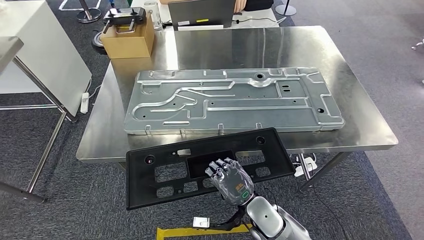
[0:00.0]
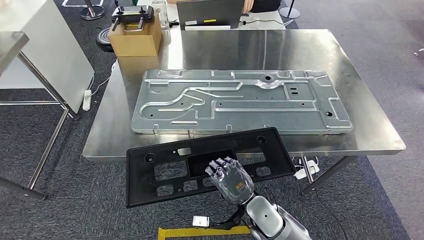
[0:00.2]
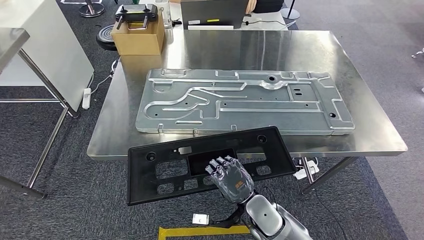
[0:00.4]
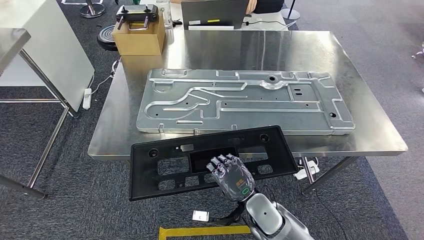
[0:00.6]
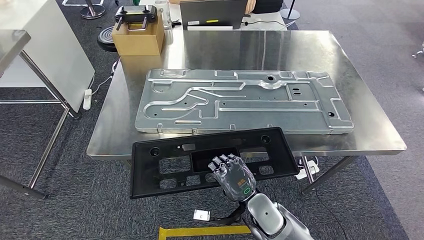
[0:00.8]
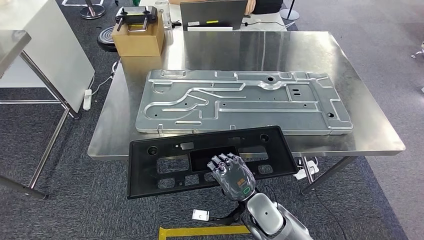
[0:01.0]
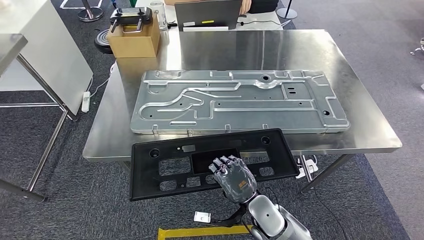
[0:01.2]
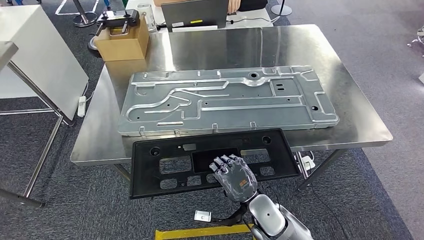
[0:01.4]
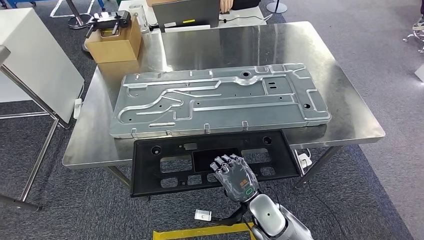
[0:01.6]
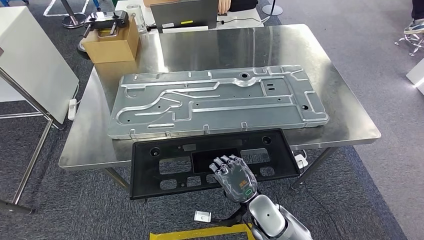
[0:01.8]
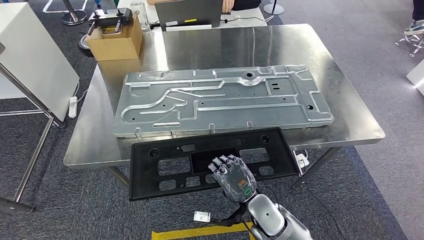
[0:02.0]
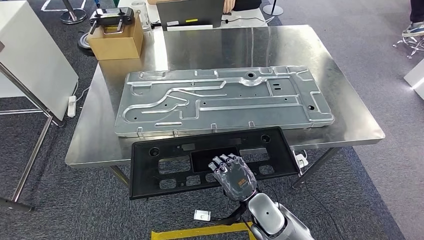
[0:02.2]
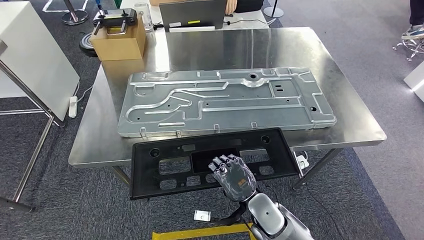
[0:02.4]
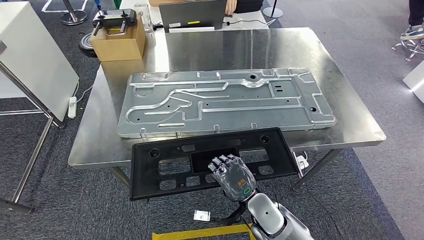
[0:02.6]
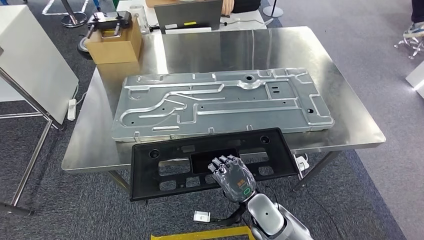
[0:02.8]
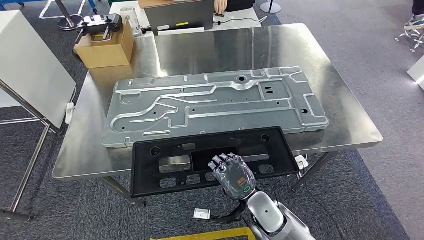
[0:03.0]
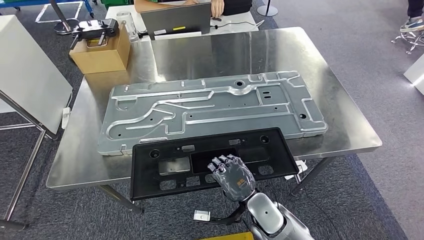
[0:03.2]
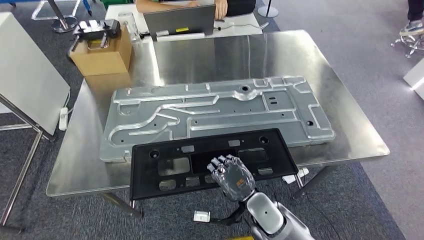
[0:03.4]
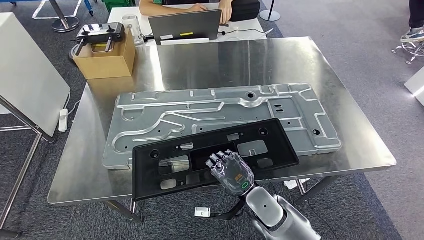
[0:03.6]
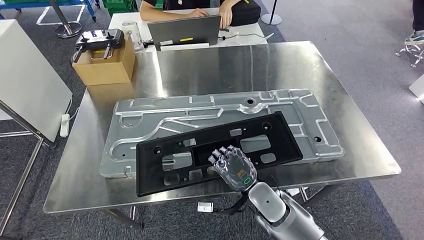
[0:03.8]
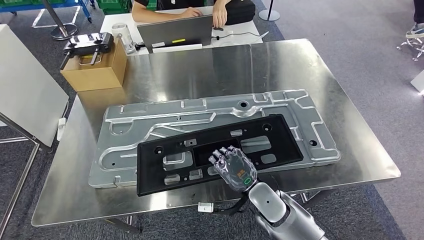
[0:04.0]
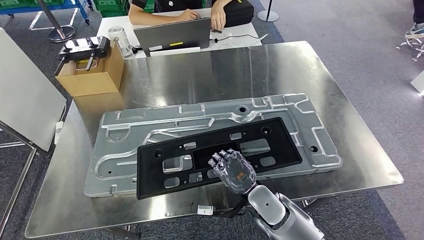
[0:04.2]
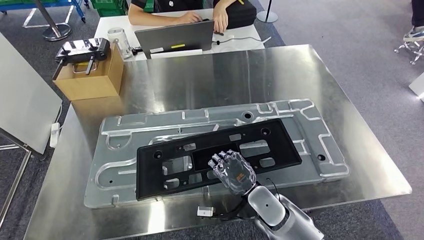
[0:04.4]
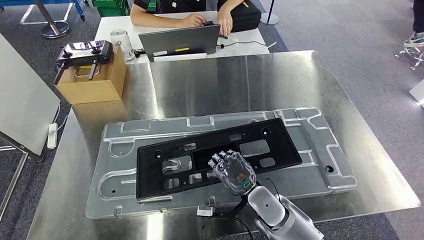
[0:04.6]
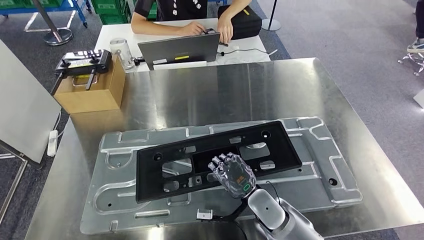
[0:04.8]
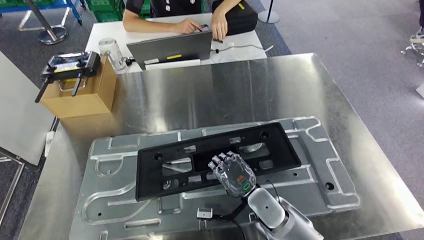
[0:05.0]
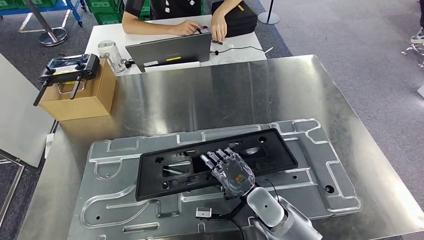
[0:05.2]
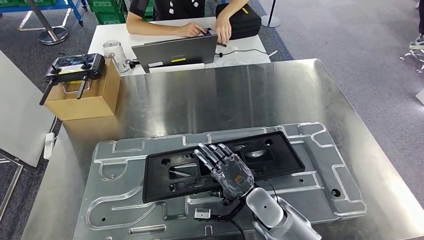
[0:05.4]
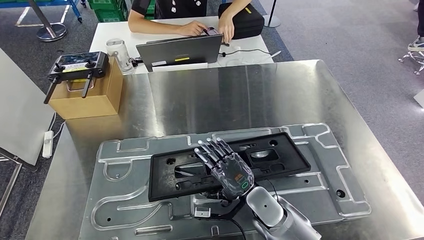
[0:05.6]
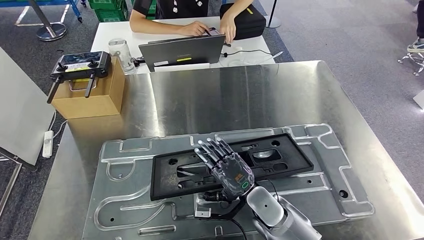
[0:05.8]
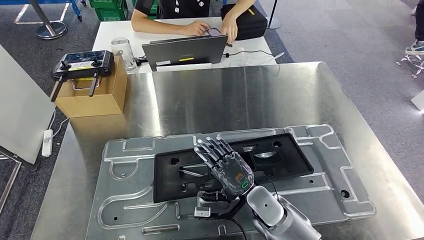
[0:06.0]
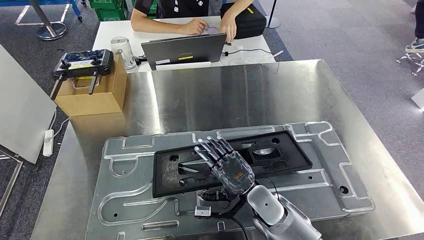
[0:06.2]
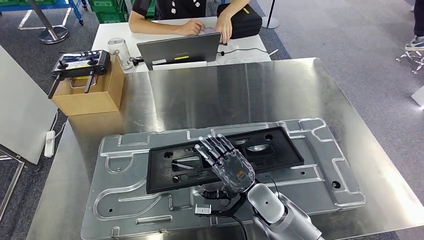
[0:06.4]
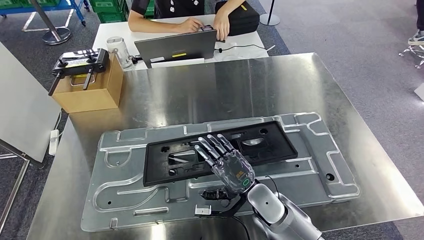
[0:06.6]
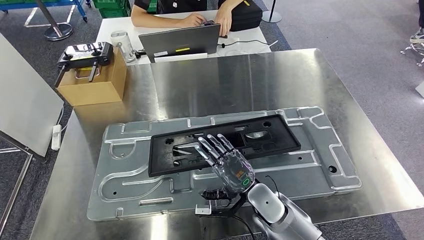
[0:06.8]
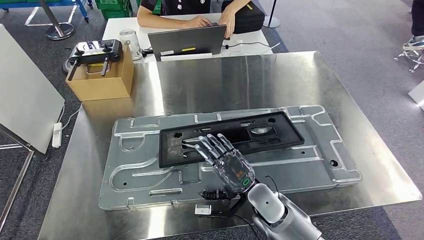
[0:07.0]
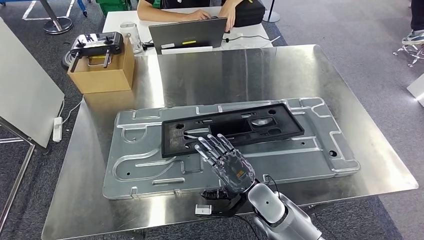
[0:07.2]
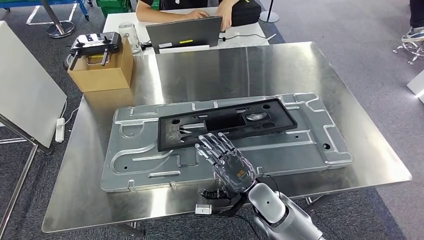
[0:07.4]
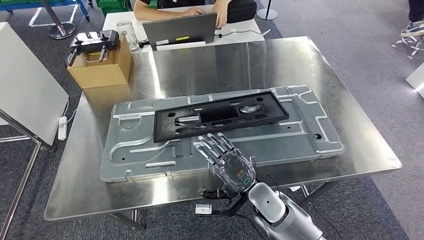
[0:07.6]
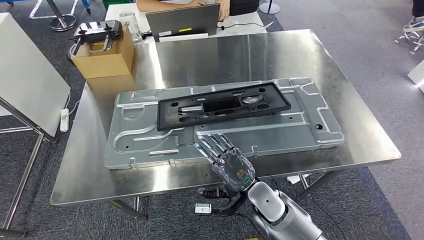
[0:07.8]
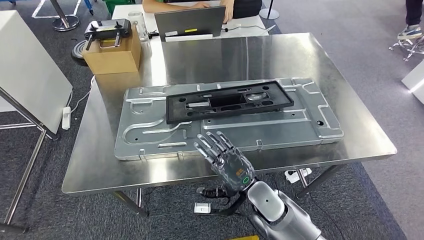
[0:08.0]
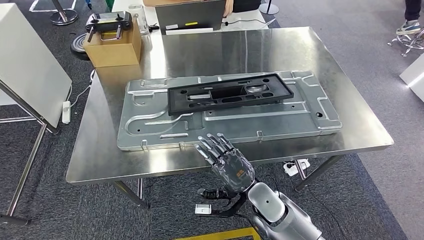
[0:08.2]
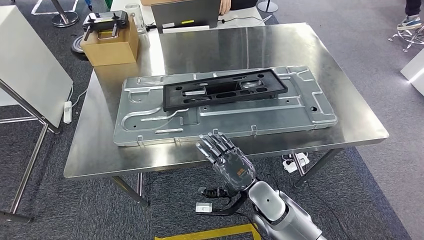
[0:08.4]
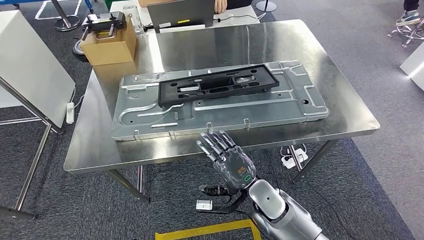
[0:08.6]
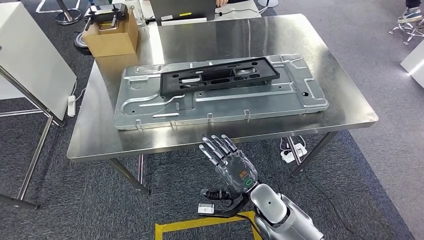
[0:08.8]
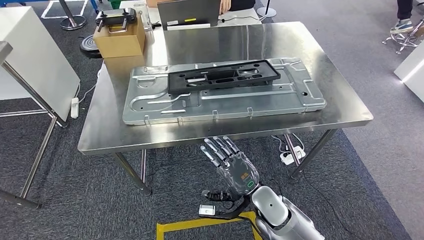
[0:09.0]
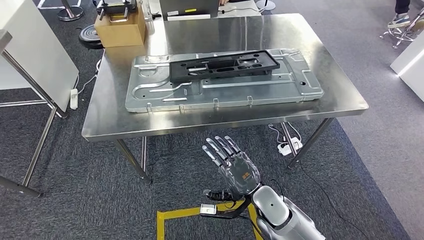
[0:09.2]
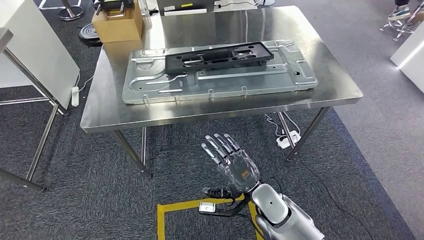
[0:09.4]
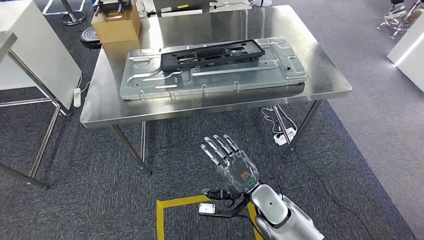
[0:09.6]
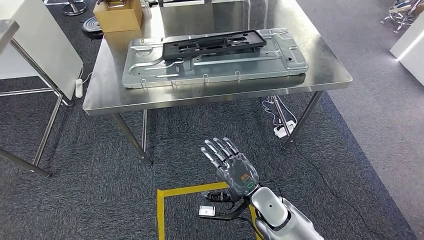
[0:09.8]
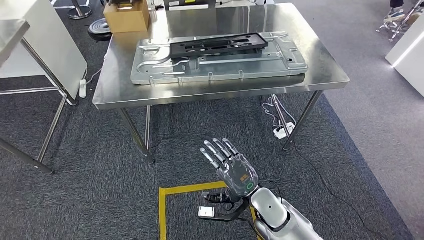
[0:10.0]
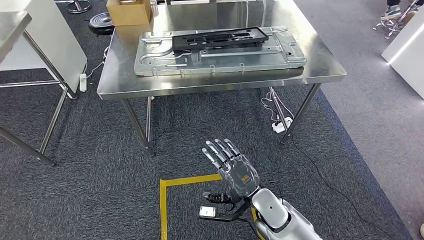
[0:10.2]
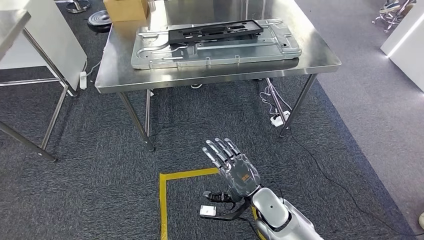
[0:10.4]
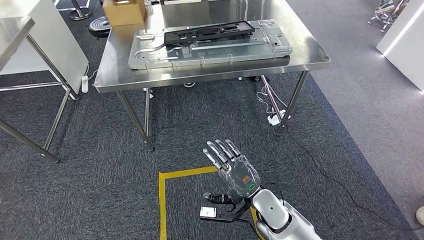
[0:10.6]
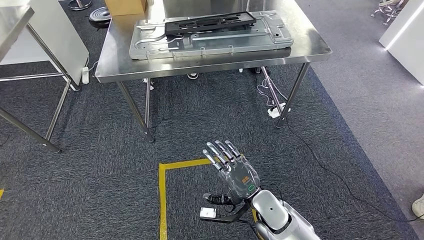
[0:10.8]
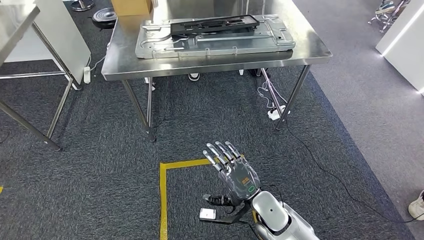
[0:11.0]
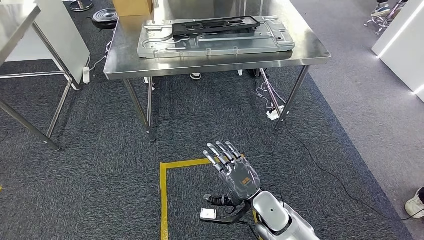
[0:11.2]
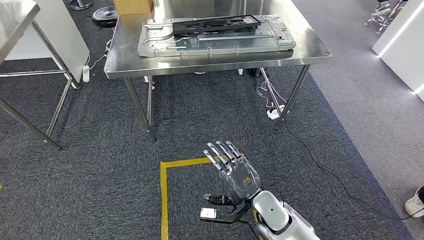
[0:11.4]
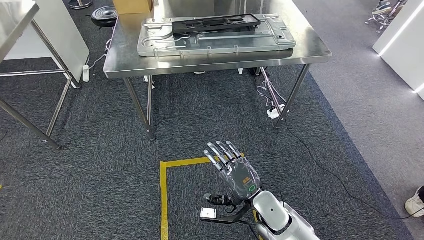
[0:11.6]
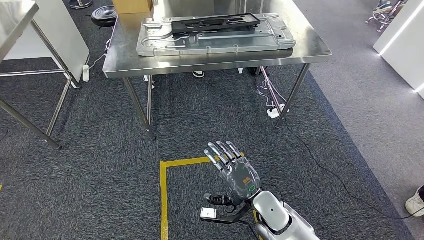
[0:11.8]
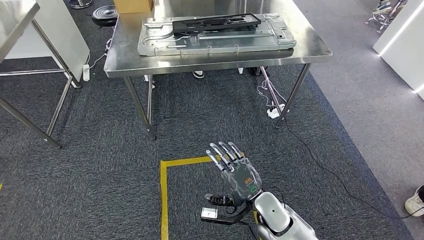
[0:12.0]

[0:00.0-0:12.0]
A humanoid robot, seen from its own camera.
Step, 0:00.2 to 0:06.0: Insert the large parts into the corresponding slots on the workbench.

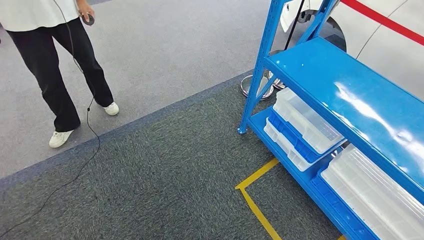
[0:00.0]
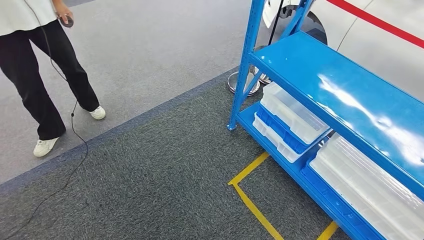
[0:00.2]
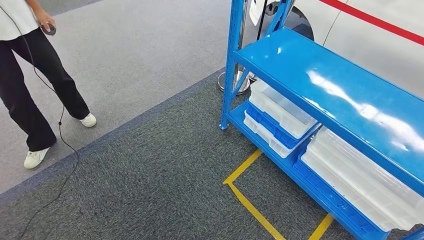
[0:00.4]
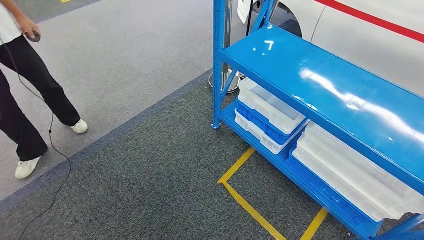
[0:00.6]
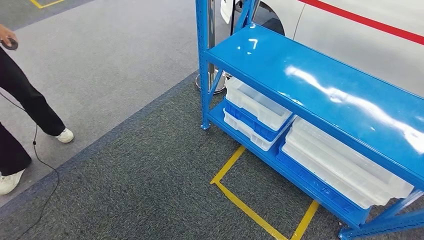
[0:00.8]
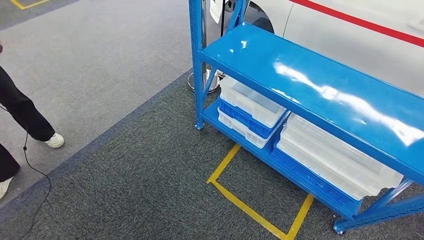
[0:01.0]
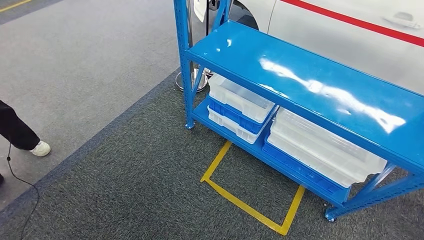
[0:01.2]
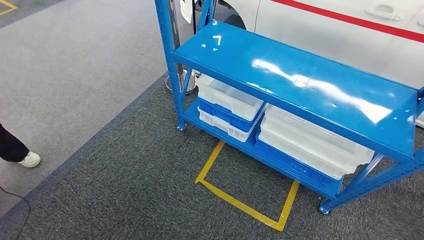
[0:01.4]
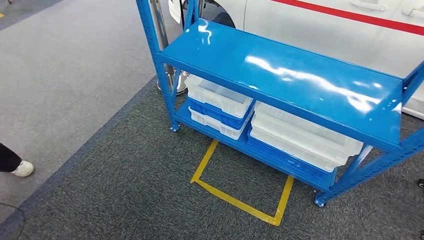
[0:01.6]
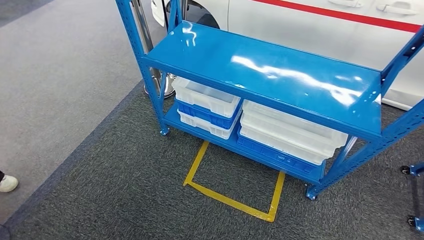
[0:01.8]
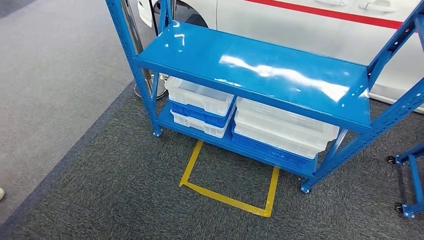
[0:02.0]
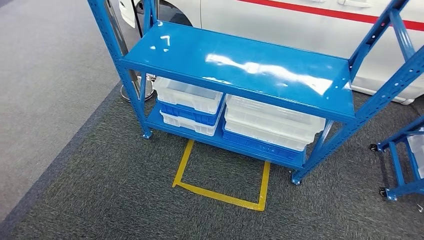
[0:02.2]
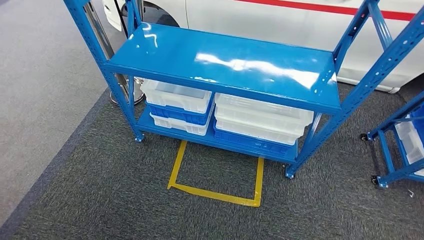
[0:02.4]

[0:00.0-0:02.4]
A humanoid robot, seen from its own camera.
Step, 0:00.0 to 0:02.4: Return to the initial position at the shelf.

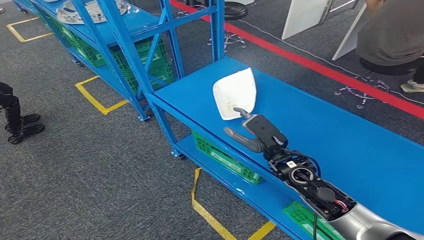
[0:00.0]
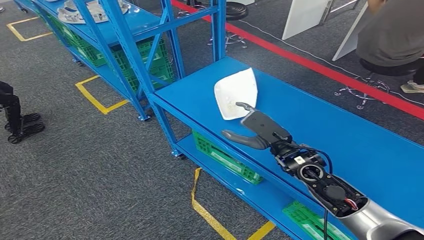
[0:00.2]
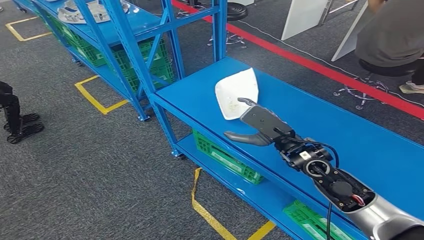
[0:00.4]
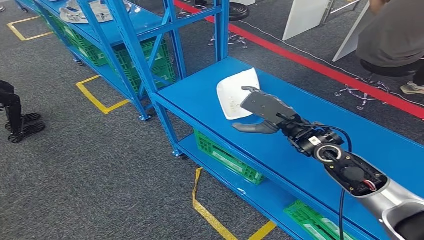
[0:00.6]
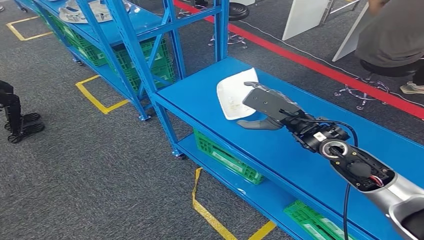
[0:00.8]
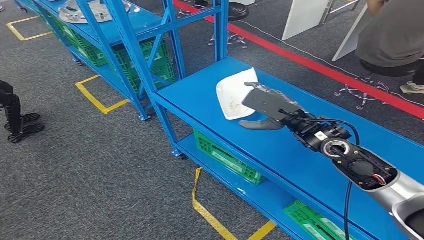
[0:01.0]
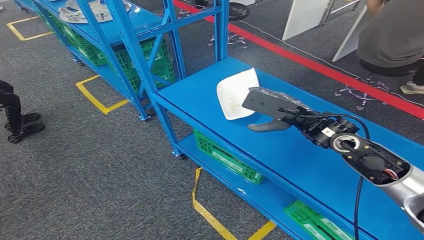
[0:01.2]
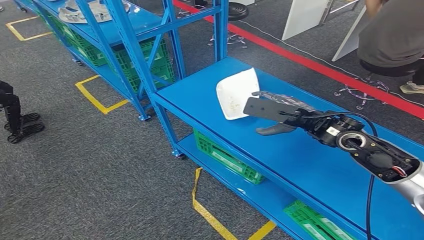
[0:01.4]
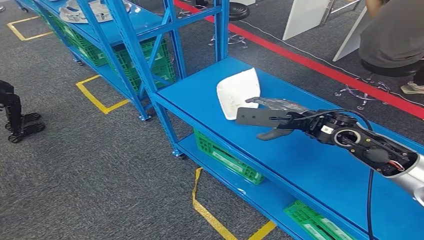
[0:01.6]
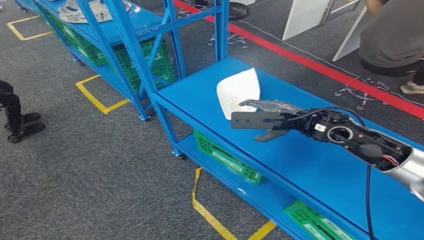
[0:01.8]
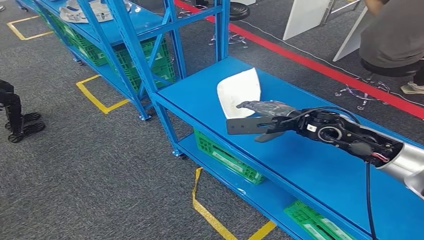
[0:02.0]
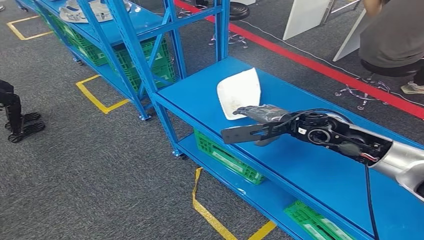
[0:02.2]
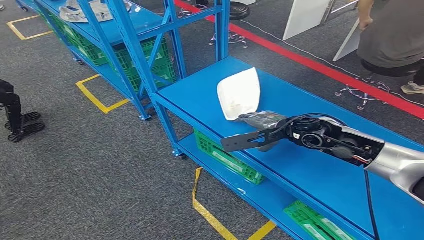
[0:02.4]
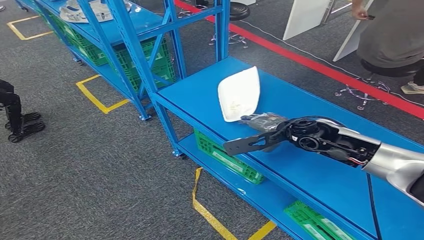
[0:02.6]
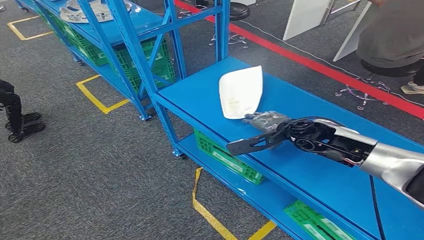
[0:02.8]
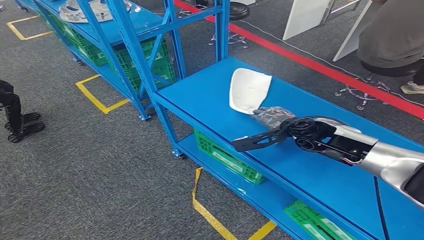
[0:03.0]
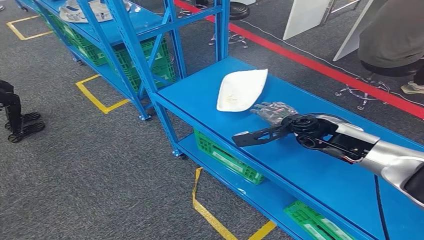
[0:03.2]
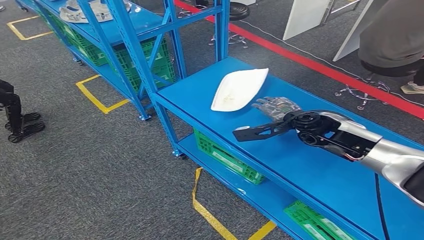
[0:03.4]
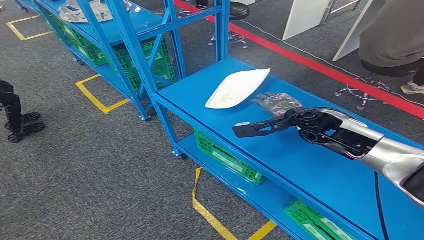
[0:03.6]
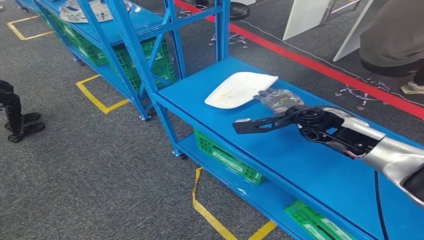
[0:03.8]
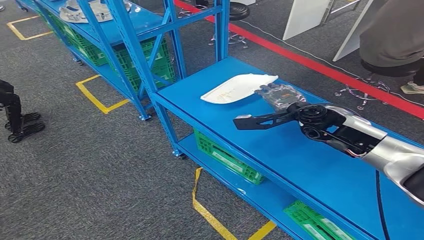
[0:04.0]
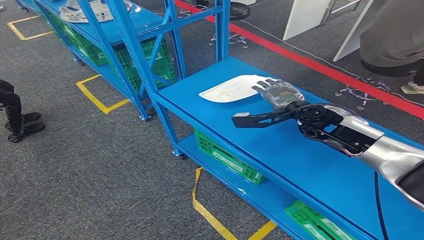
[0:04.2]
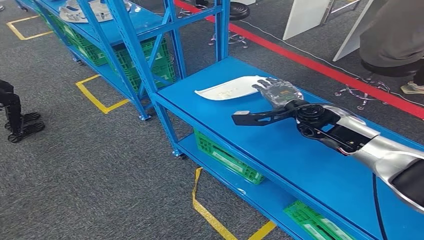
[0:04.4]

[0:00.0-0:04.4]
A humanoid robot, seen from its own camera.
0:00.0 to 0:01.4: The right hand goes some 15 cm upward and to the right. The left hand heads backward, covering approximately 5 cm.
0:01.4 to 0:03.0: The right hand is displaced downward and forward by roughly 10 cm.
